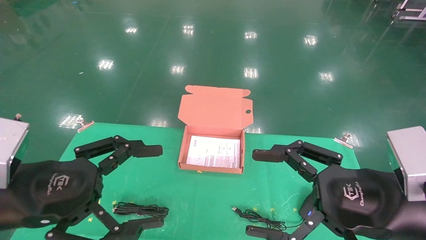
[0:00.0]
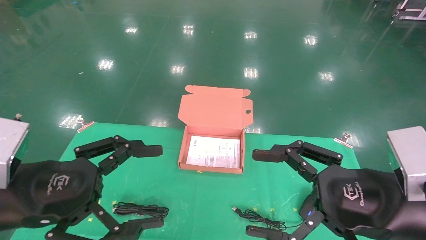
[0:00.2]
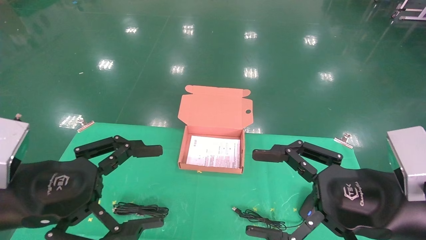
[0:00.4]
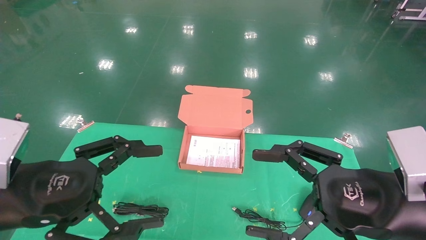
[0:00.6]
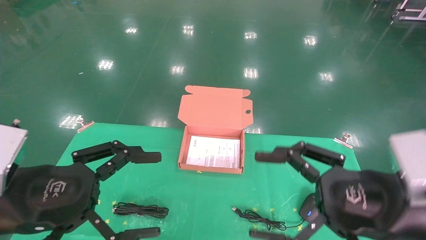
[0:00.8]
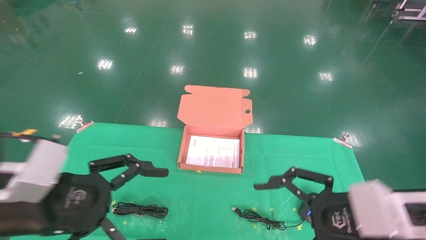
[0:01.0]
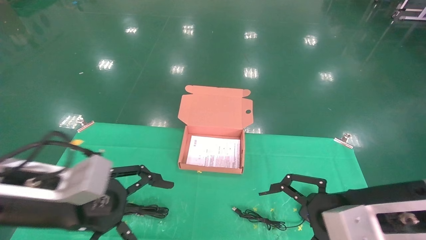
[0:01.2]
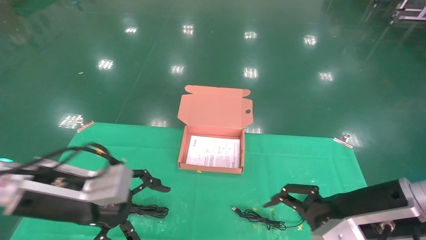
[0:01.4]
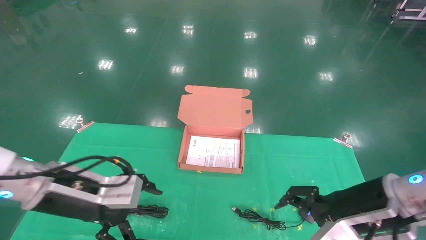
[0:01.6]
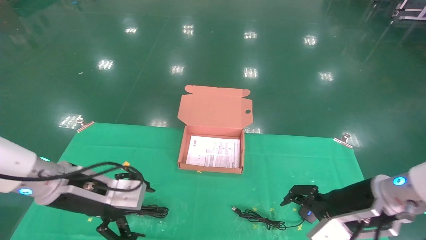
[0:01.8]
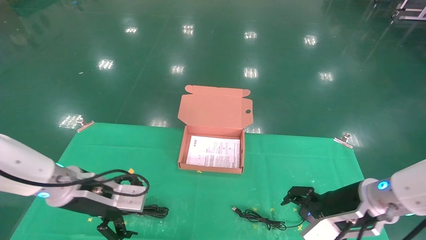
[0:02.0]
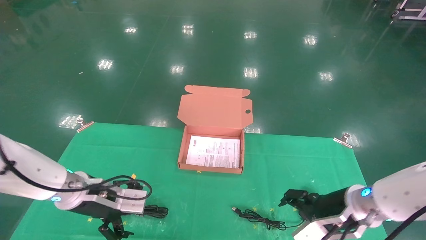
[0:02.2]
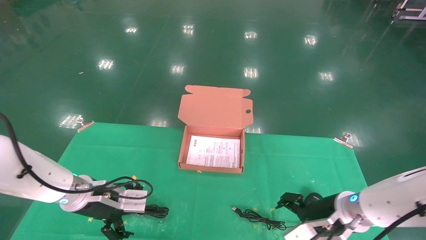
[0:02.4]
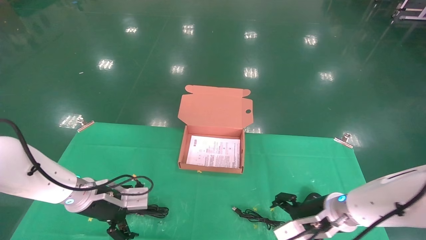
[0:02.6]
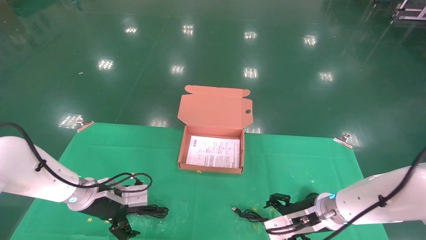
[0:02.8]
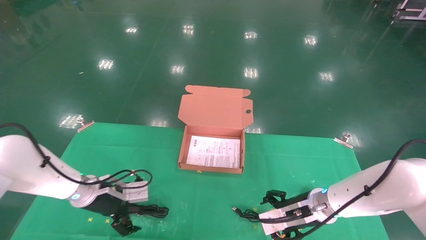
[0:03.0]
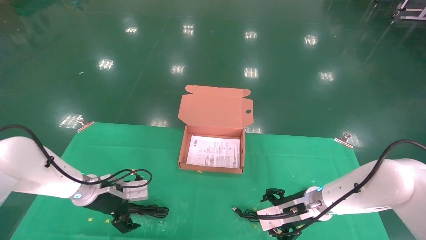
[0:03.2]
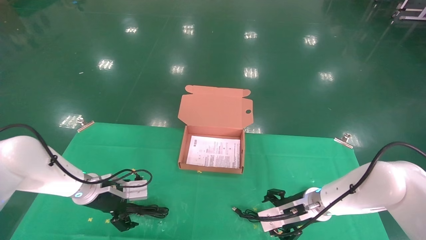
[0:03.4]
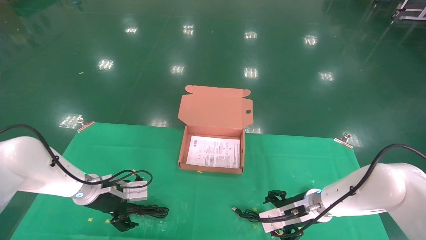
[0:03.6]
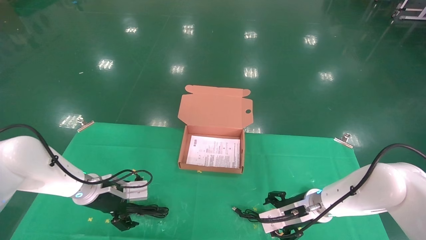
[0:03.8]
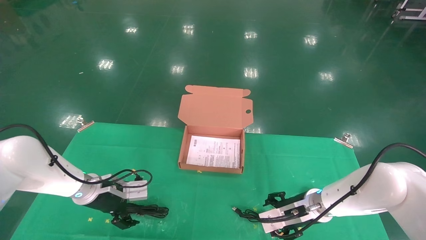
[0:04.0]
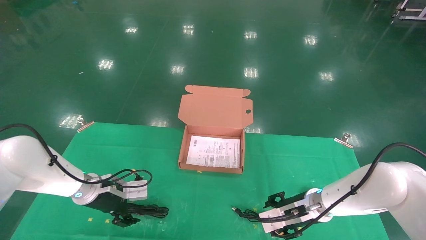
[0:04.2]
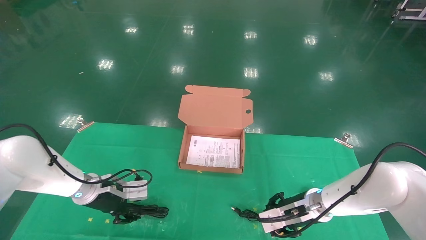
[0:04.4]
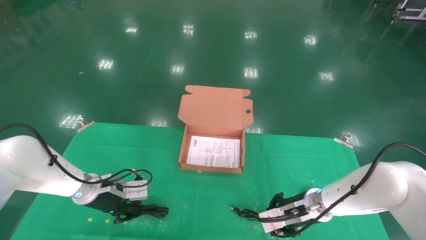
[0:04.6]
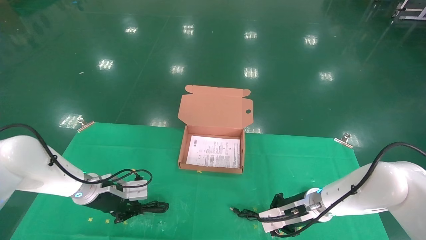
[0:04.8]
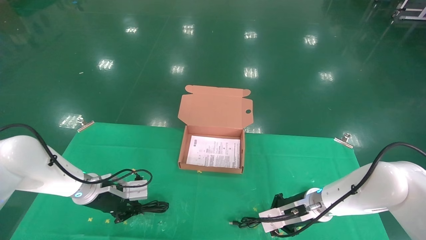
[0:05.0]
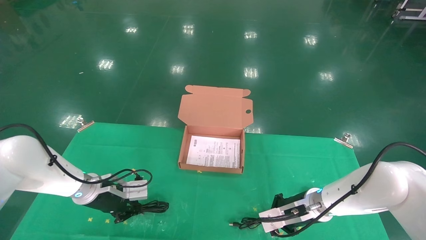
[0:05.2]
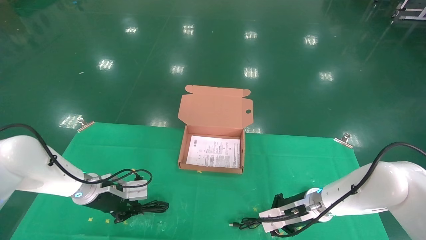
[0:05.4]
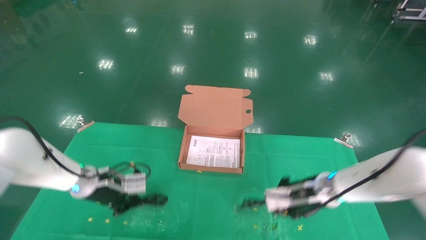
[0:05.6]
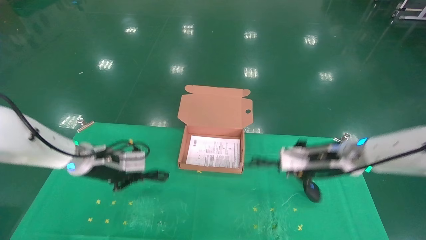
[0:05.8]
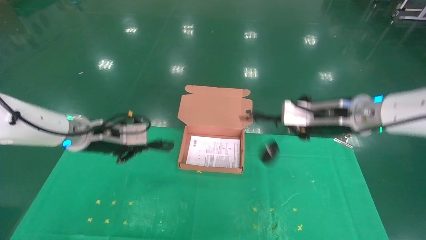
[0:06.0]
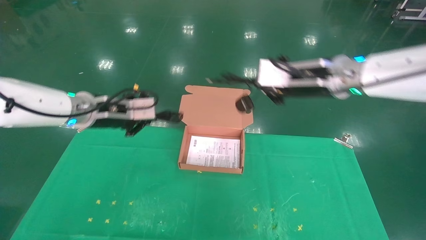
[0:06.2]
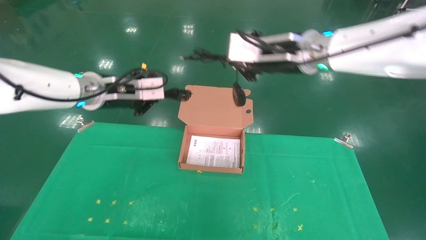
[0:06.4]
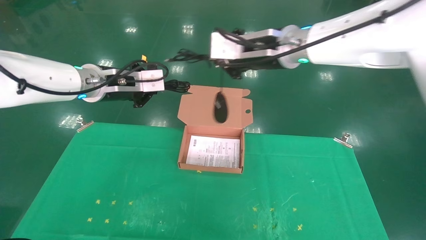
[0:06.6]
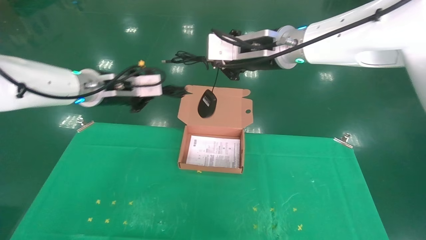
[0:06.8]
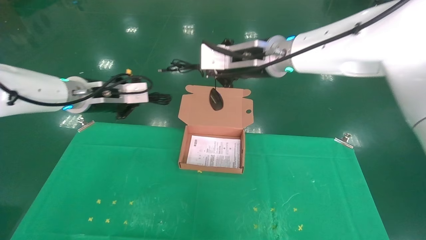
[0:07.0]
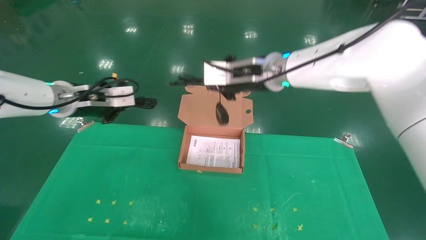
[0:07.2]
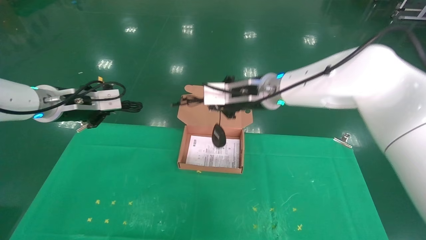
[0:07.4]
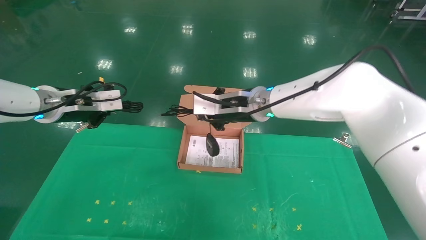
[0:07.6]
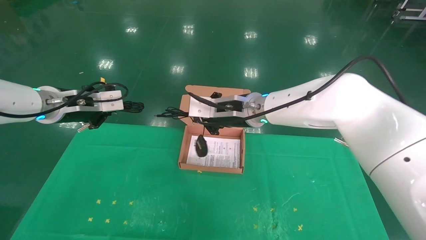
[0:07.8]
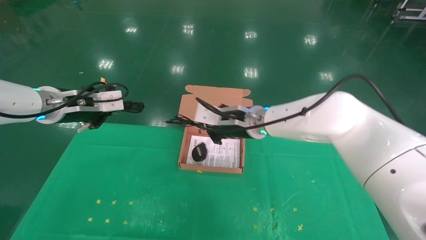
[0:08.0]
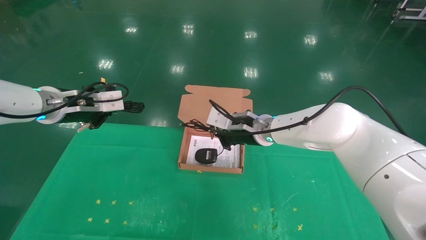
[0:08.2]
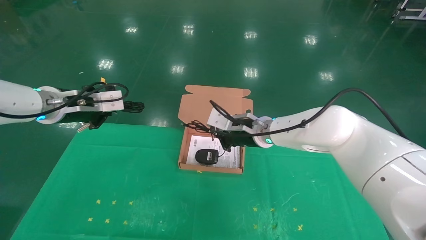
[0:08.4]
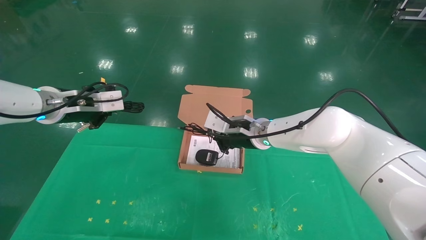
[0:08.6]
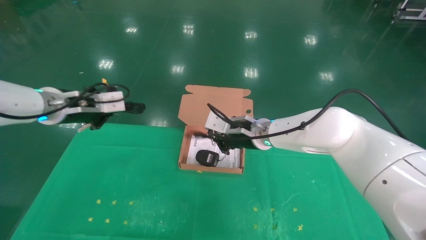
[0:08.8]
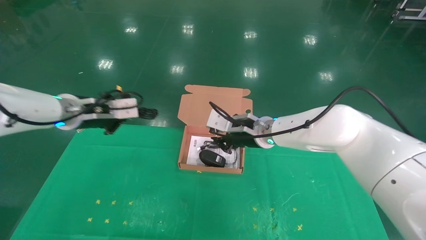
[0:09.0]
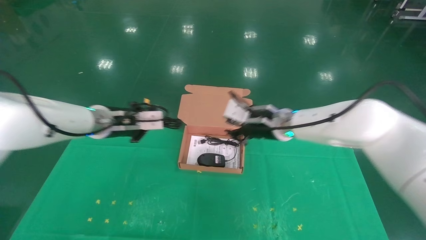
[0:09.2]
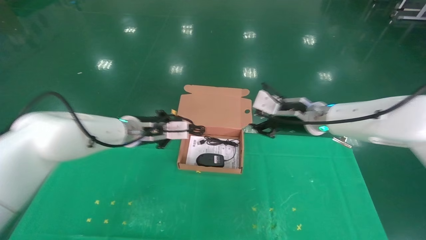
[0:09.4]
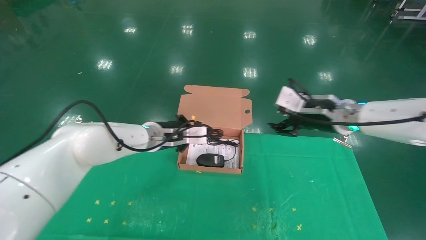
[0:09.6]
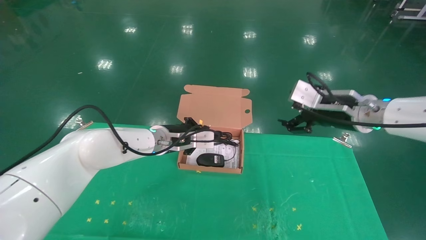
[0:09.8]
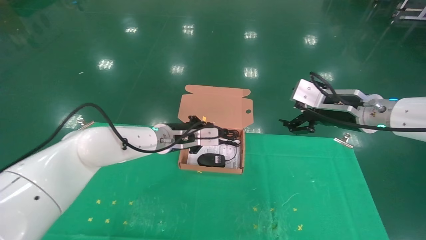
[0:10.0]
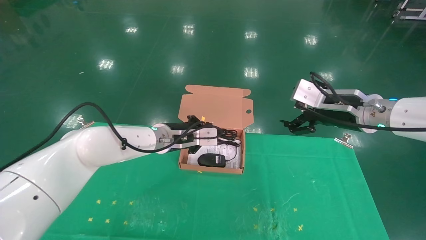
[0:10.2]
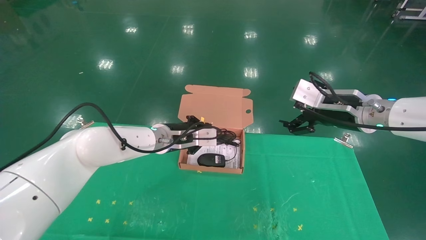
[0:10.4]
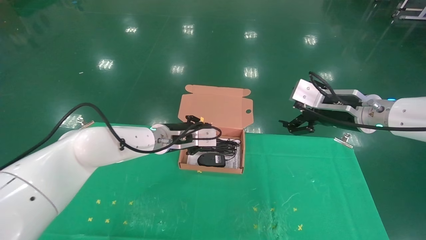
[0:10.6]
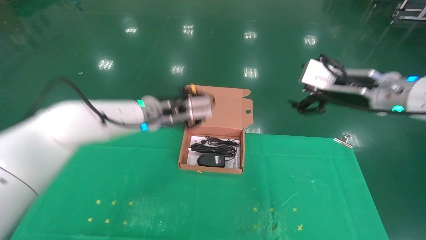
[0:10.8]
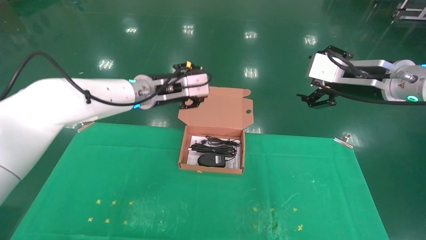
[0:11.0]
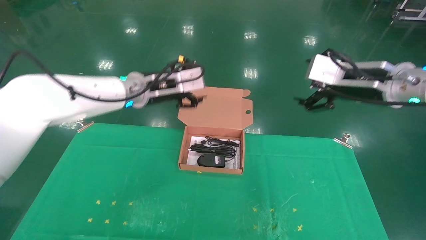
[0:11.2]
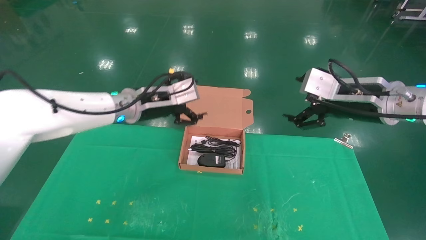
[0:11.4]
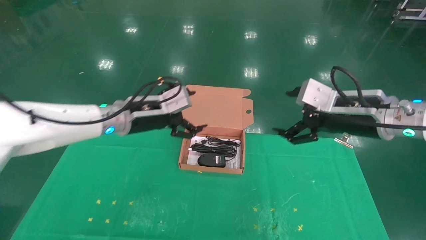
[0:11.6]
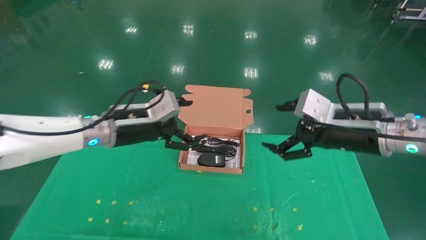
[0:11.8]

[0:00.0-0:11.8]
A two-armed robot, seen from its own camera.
Task of the whole recording: grasp data cable left put into box grasp mouse right put into box.
Step, 0:01.2 to 0:05.4: Grab and pick up both the mouse and power cord from the accessory packaging area at the same time.
Step, 0:05.6 to 0:11.0: Place the mouse and power cord into the box.
0:00.0 to 0:01.4: The two grippers go roughly 5 cm forward.
0:01.4 to 0:03.0: The two grippers go roughly 20 cm forward and downward.
0:03.0 to 0:04.4: The left gripper closes up; the right gripper closes its fingers.
0:04.4 to 0:06.0: The two grippers go approximately 20 cm upward. The left gripper closes its fingers. The right gripper closes its fingers.
0:06.0 to 0:07.4: The left gripper goes some 5 cm upward. Meanwhile the right gripper goes approximately 15 cm to the left.
0:07.4 to 0:08.8: The right gripper heads downward, covering about 10 cm.
0:08.8 to 0:10.4: The left gripper moves to the right and downward, about 20 cm, while the right gripper heads to the right, backward and upward, covering roughly 20 cm, and opens its fingers.
0:10.4 to 0:11.8: The left gripper is displaced backward, to the left and upward by roughly 10 cm, and opens up, while the right gripper travels backward by roughly 5 cm.

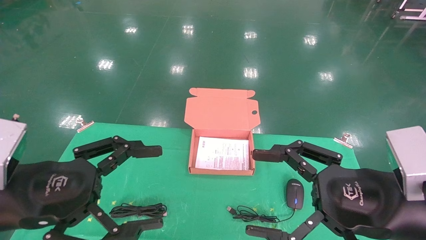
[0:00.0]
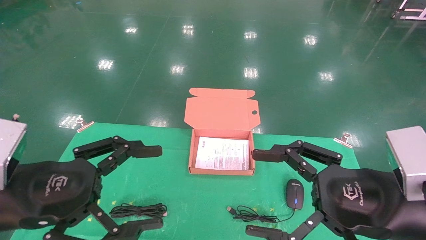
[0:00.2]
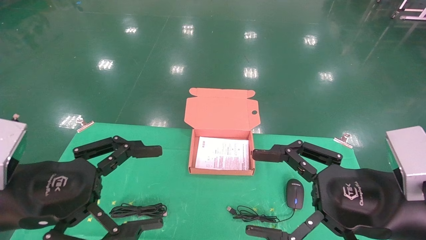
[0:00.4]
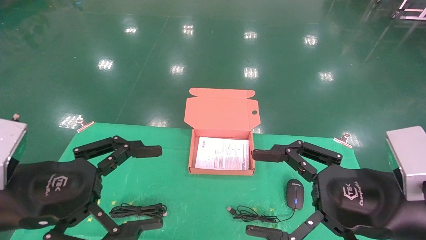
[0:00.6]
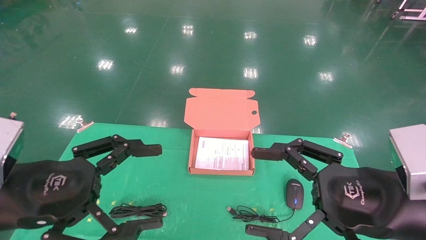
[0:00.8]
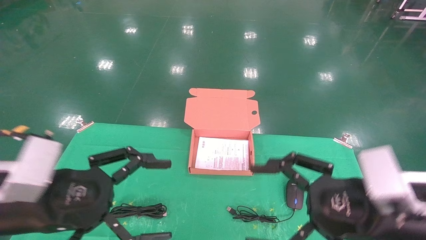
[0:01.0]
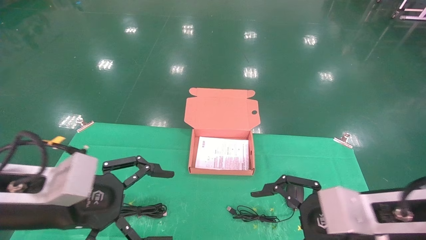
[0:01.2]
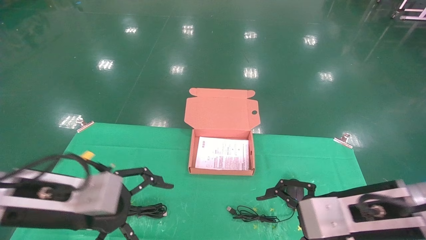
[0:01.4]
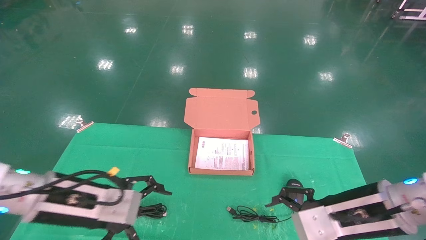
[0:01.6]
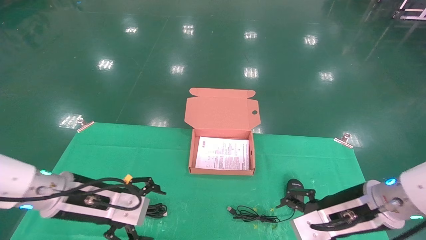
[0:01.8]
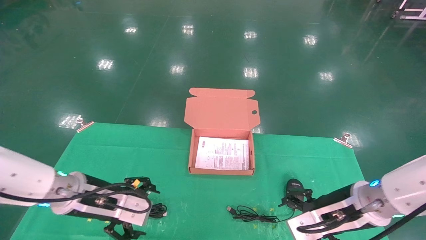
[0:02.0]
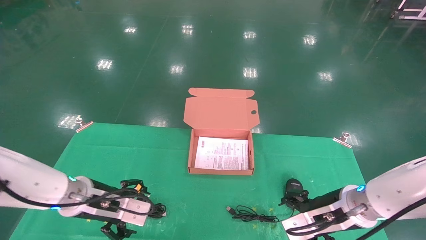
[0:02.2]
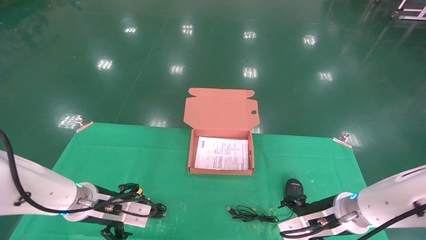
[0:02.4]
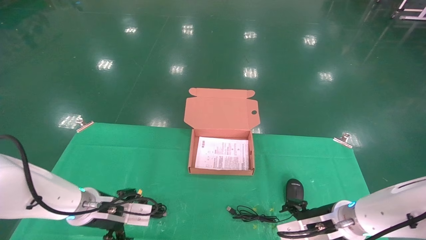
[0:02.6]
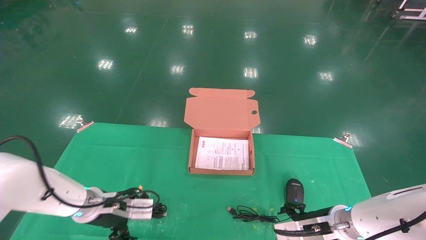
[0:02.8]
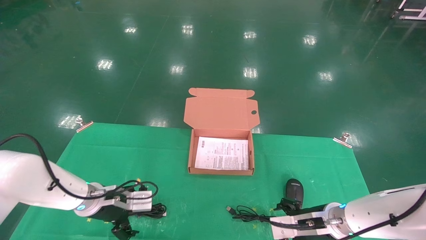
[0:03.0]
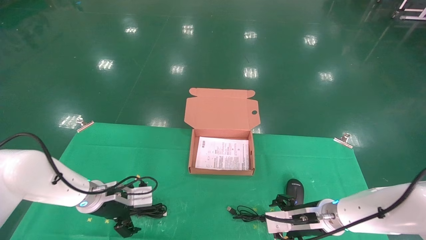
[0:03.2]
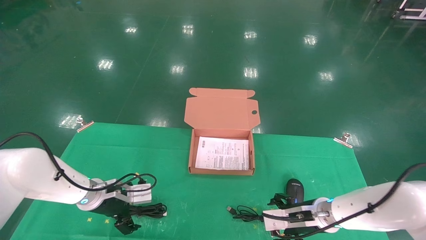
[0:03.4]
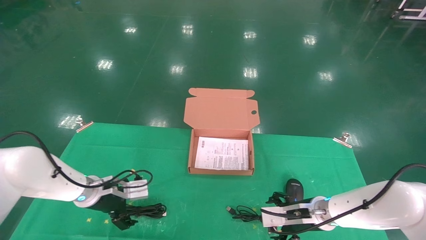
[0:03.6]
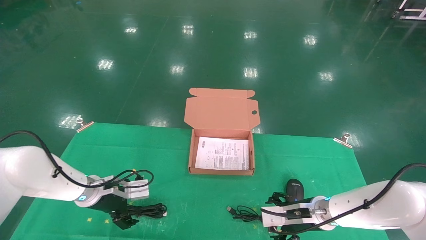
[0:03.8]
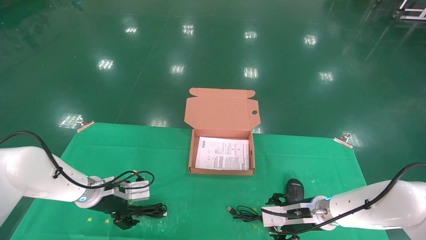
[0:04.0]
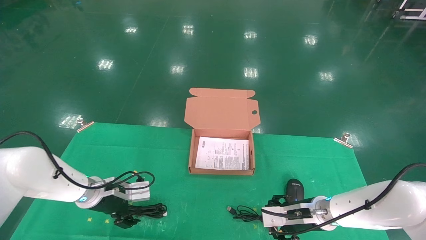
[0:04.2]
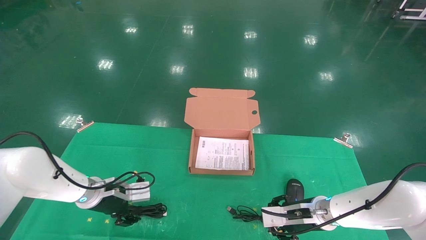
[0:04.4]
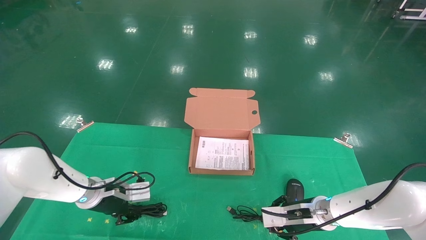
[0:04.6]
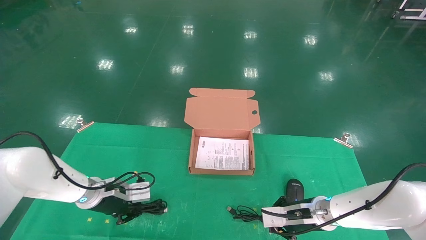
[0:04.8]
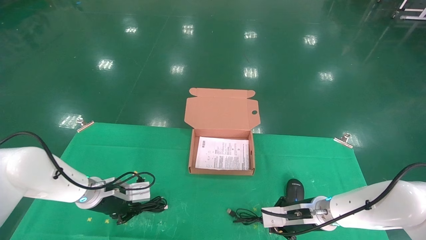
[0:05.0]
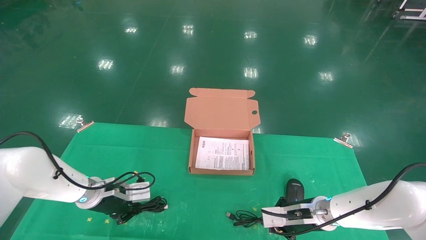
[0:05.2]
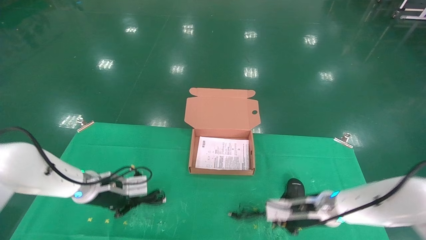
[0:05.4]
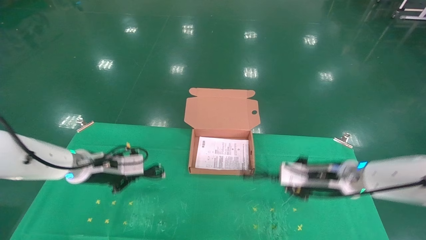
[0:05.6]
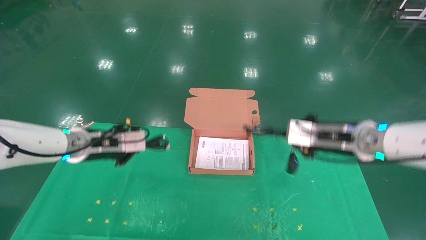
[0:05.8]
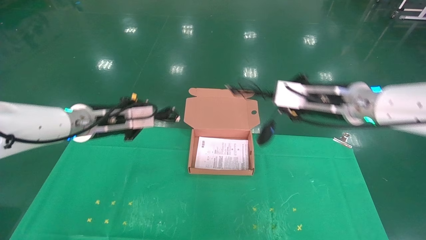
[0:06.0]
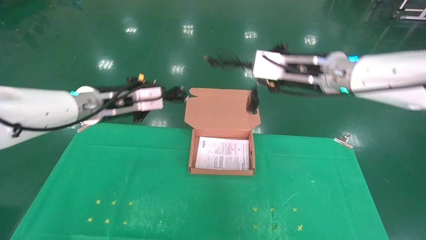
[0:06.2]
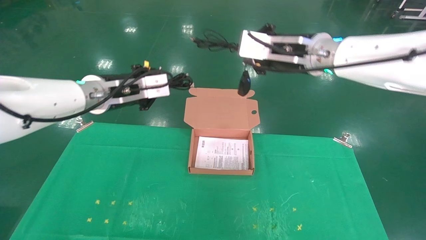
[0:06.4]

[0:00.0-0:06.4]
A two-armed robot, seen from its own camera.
Task of the whole recording: grasp data cable left put into box grasp mouse right put into box.
Step, 0:01.0 to 0:05.6: Grab and pick up both the mouse and power cord from the accessory packaging area at the same time.
0:00.0 to 0:01.6: Both grippers travel together forward and downward, about 10 cm.
0:01.6 to 0:03.2: The left gripper is displaced forward and downward by approximately 20 cm, while the right gripper moves downward and forward, roughly 15 cm.
0:03.2 to 0:04.8: The right gripper closes its fingers. The left gripper closes.
0:04.8 to 0:06.4: Both grippers travel together upward, roughly 30 cm.
